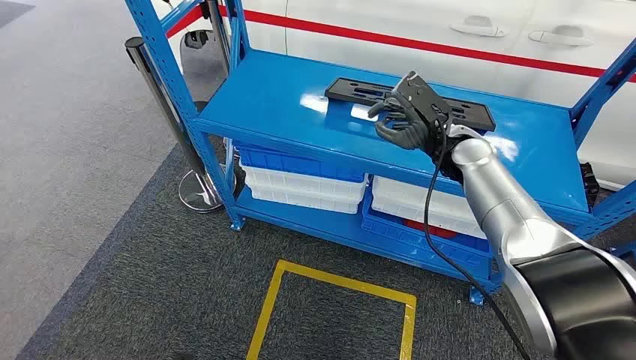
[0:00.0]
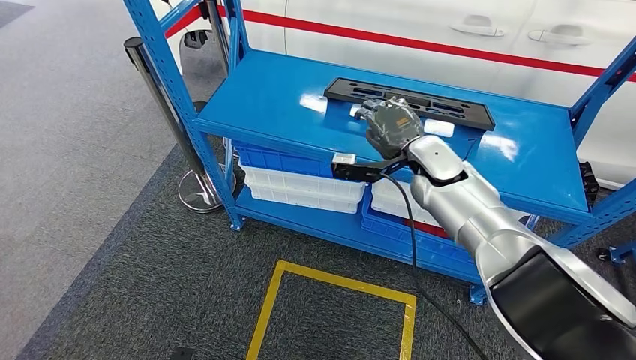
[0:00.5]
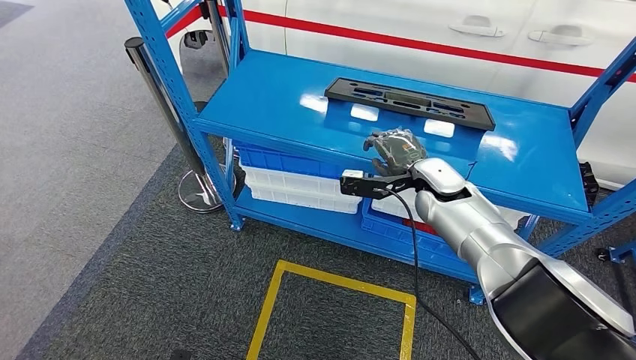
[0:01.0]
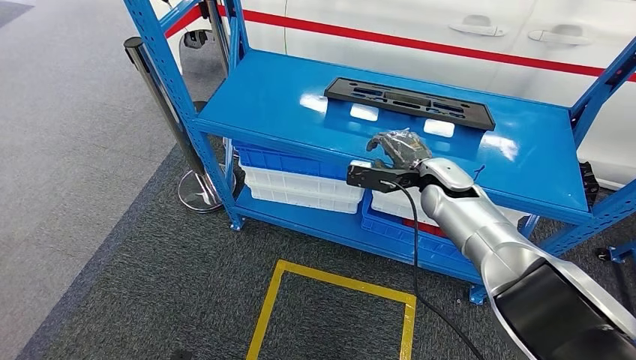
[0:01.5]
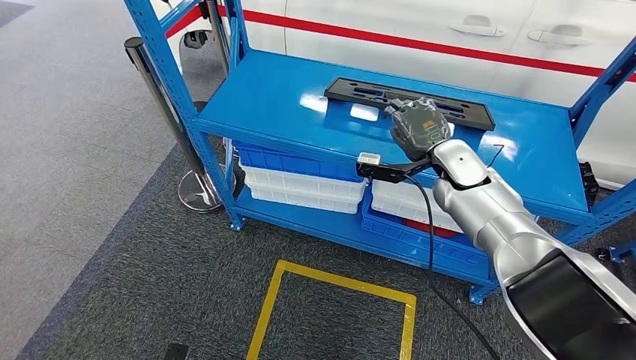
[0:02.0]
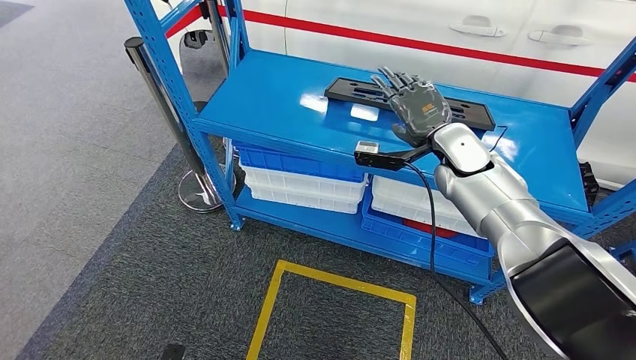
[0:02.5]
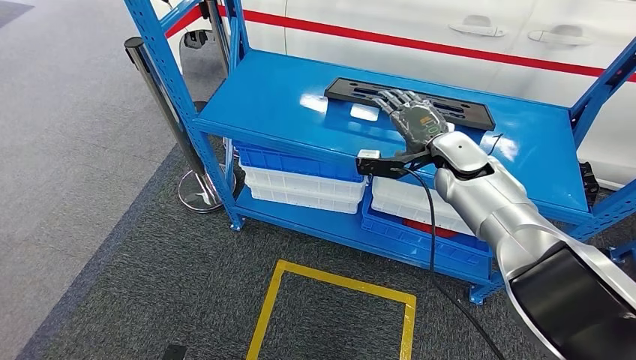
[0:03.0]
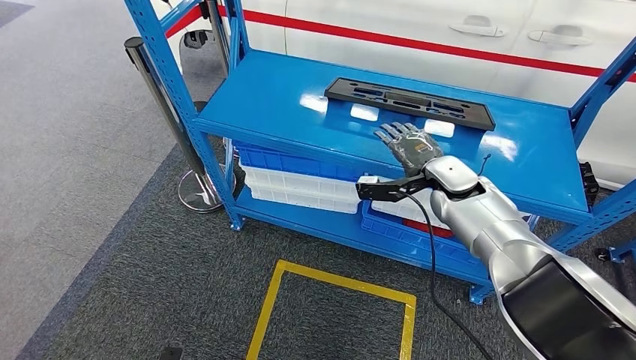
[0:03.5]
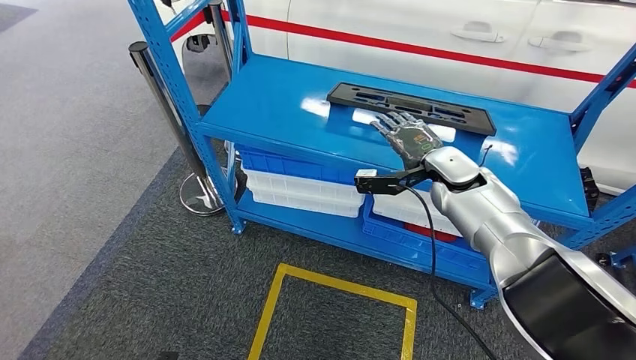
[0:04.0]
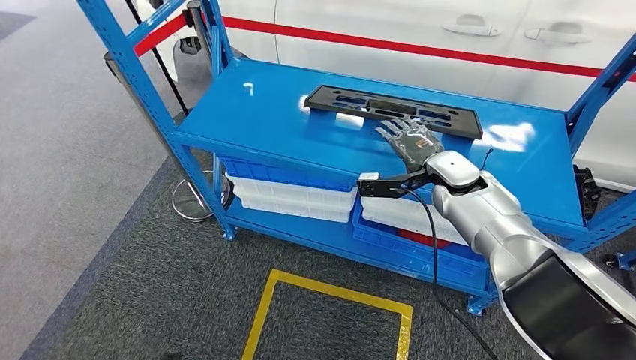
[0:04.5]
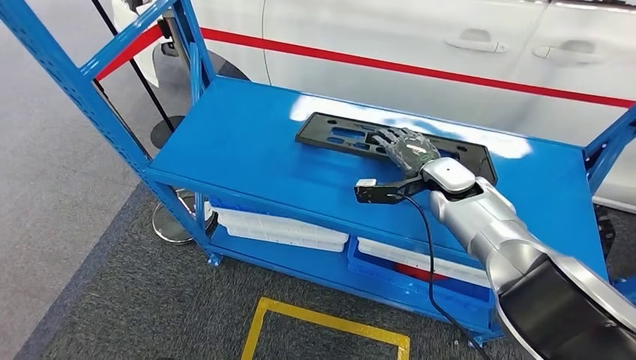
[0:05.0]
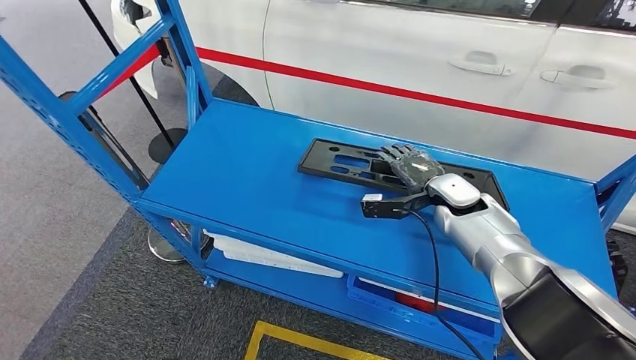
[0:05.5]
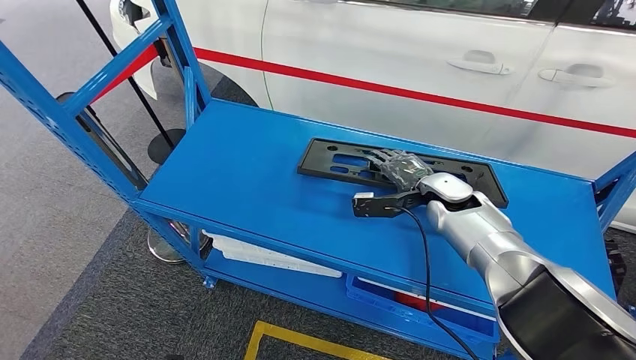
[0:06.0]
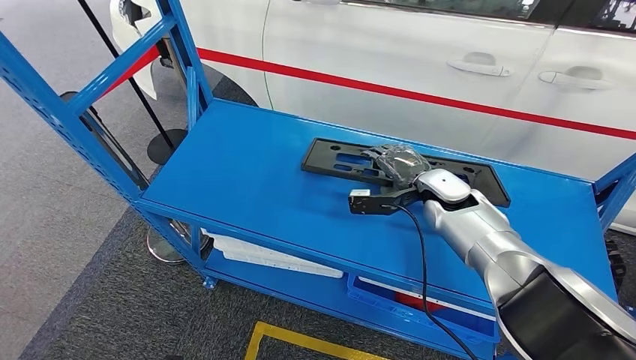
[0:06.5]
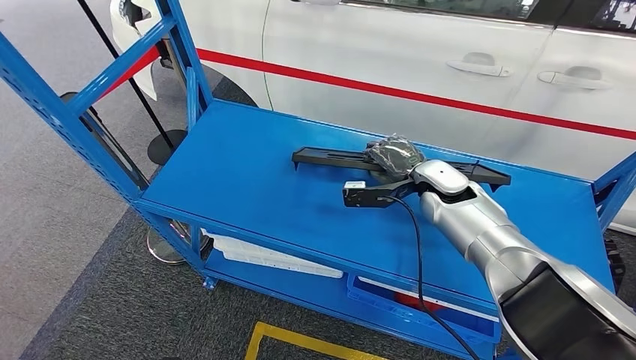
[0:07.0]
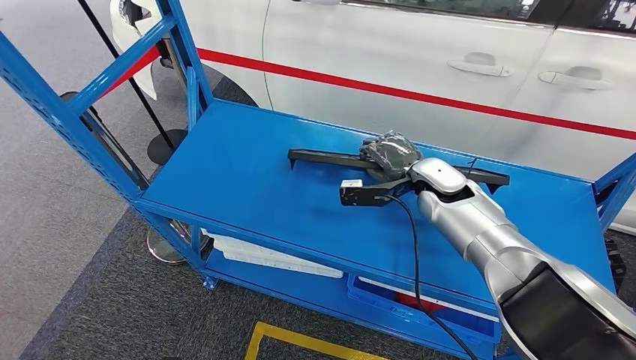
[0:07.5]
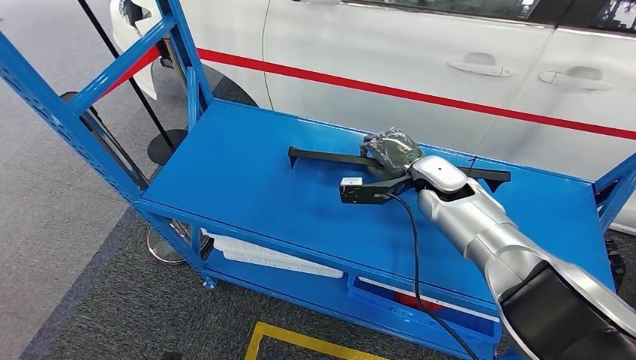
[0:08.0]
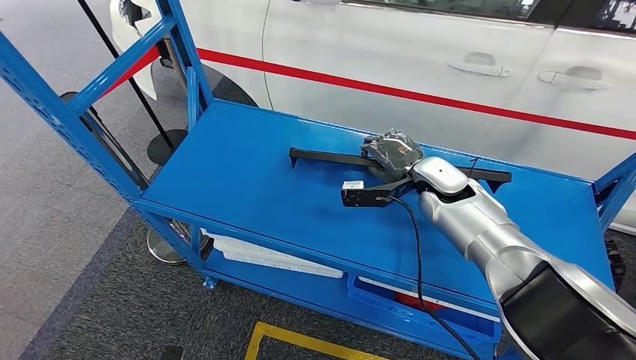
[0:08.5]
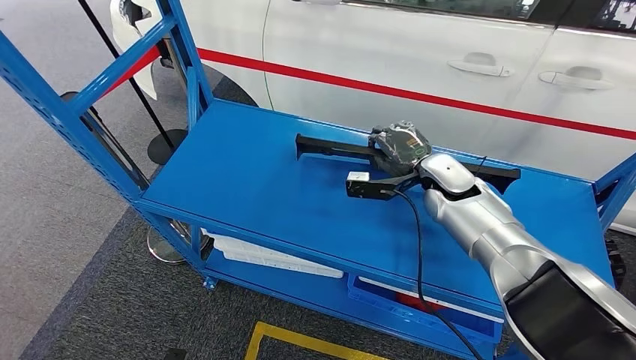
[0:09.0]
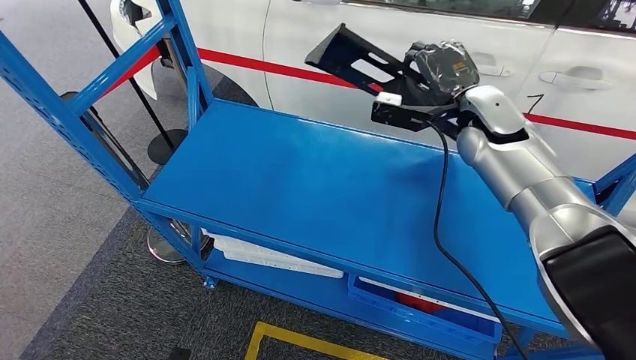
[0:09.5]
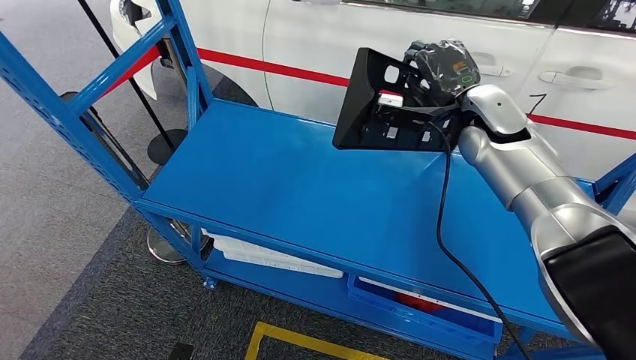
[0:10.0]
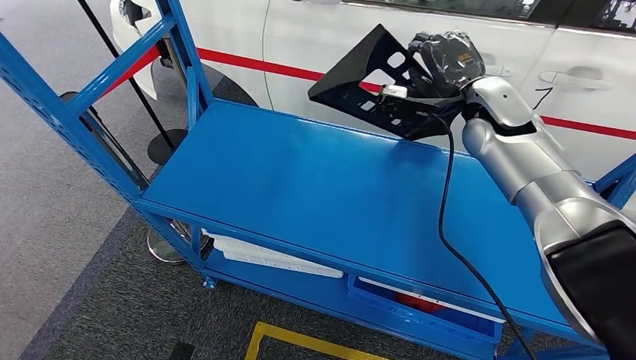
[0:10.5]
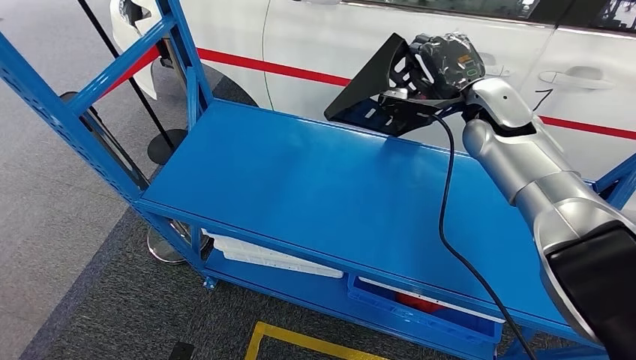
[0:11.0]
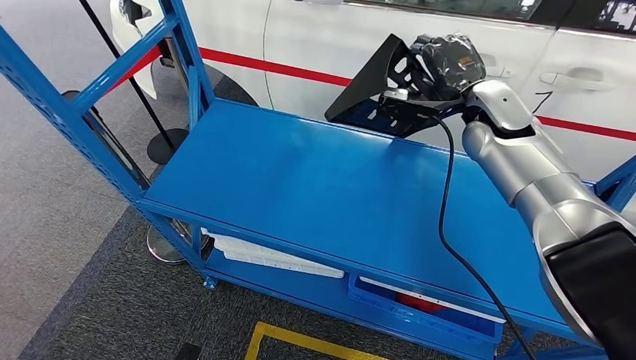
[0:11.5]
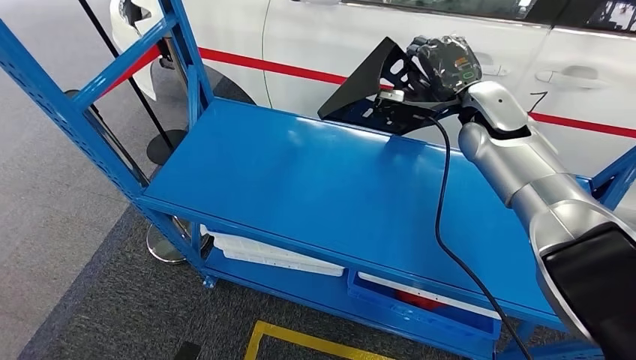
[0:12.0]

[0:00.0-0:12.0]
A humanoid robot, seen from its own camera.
Step, 0:00.0 to 0:09.0: Pick up the large material from the shelf.
0:06.0 to 0:08.0: The hands stay close to where they were, moving slightly.
0:10.0 to 0:12.0: There are only small adjustments of the hands.

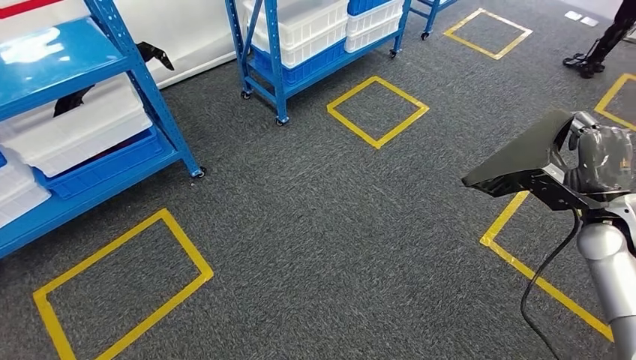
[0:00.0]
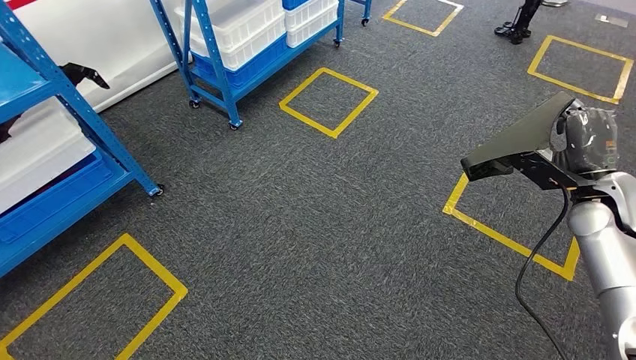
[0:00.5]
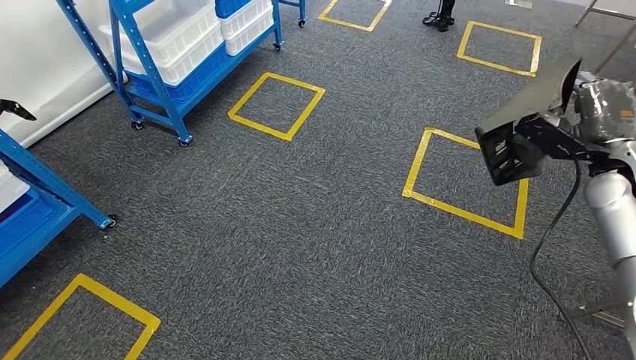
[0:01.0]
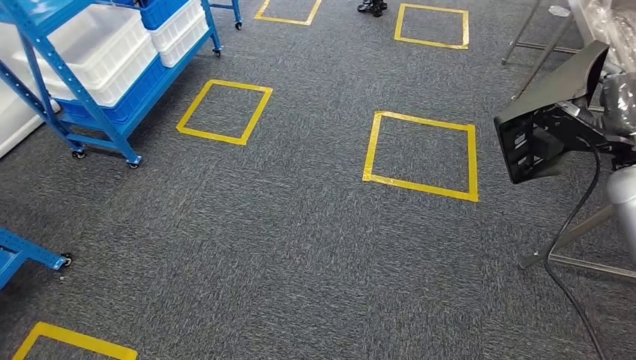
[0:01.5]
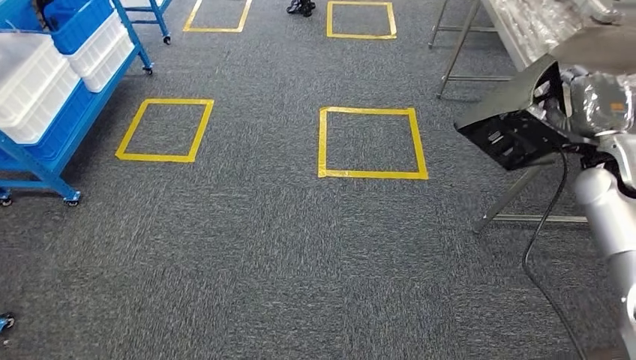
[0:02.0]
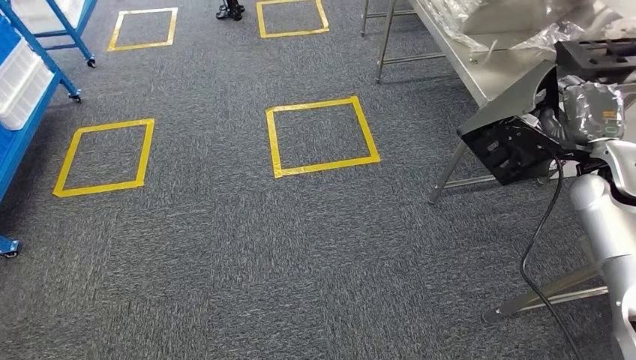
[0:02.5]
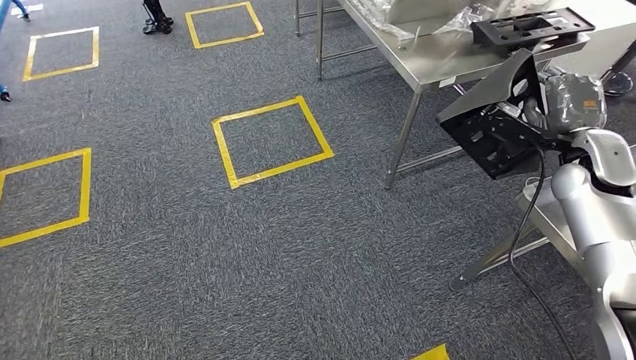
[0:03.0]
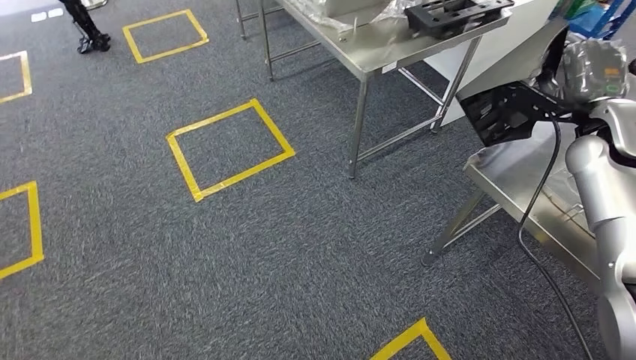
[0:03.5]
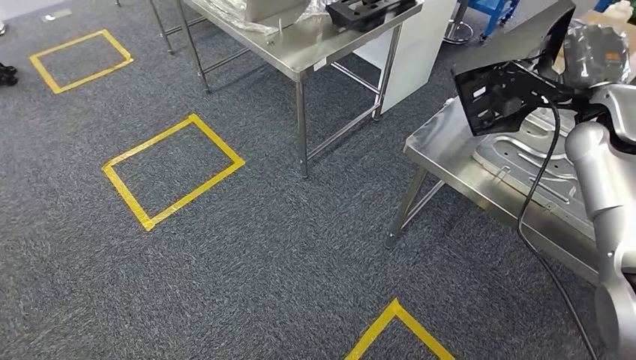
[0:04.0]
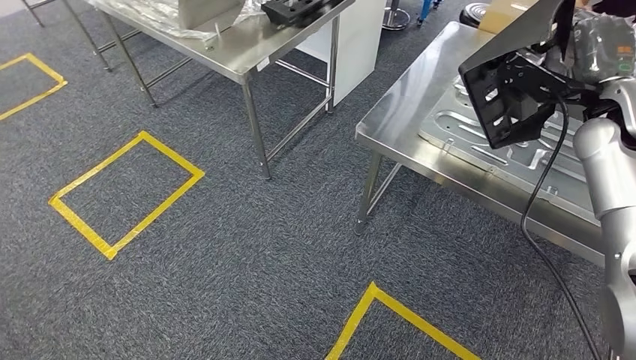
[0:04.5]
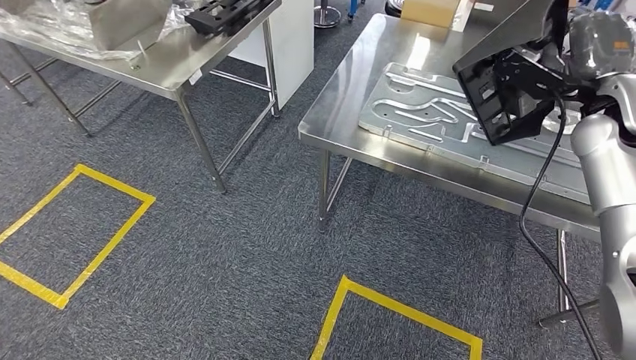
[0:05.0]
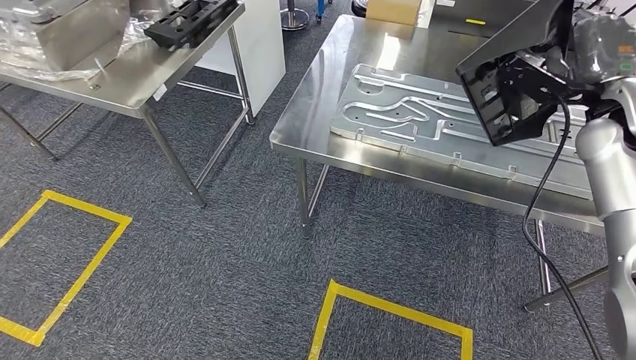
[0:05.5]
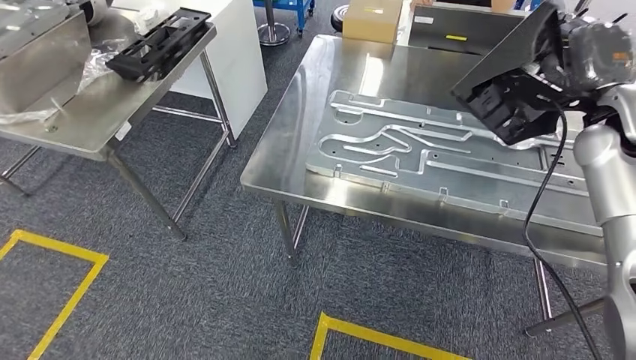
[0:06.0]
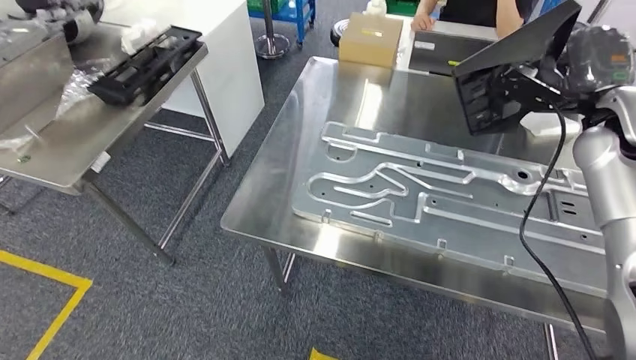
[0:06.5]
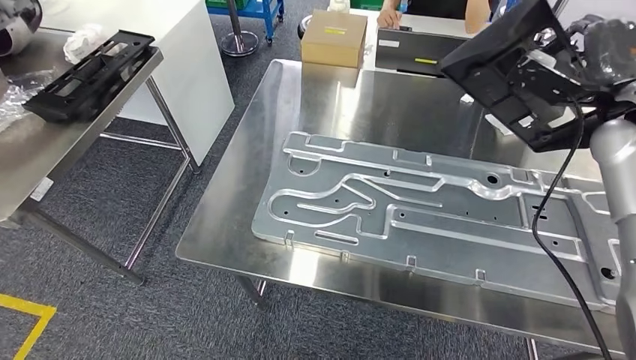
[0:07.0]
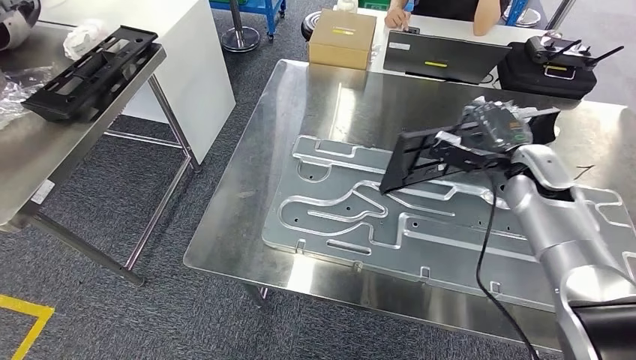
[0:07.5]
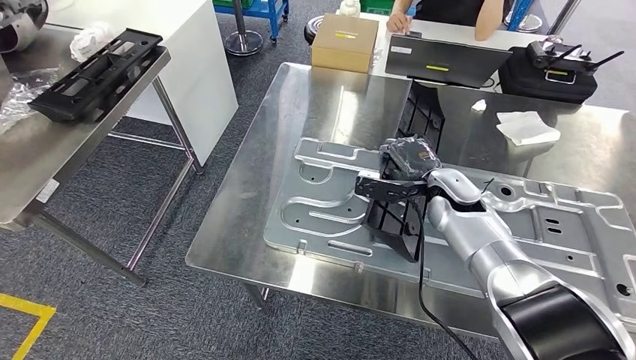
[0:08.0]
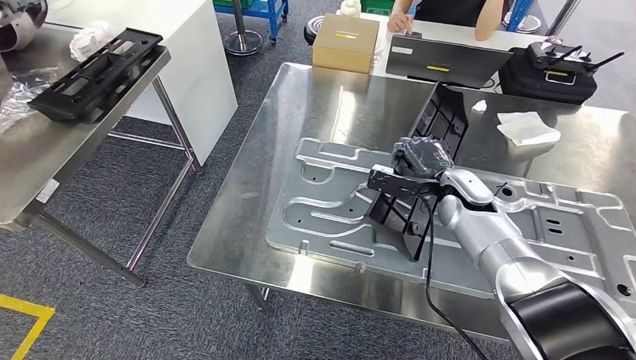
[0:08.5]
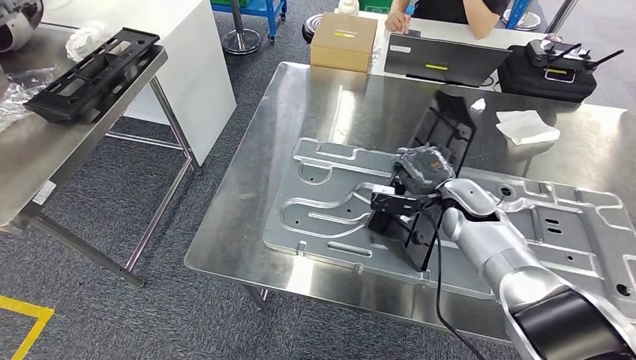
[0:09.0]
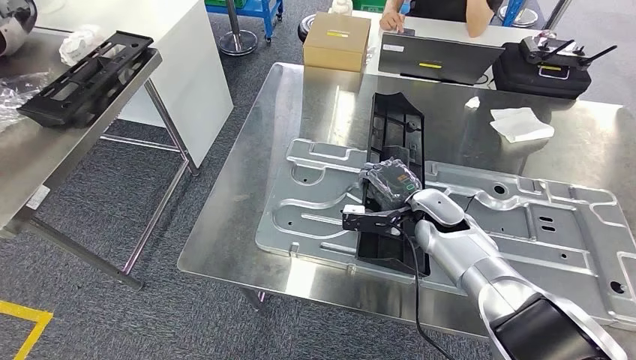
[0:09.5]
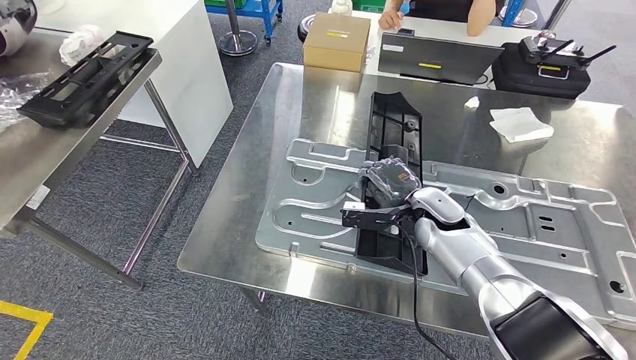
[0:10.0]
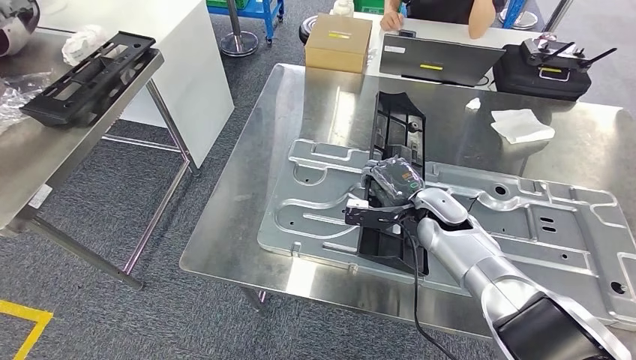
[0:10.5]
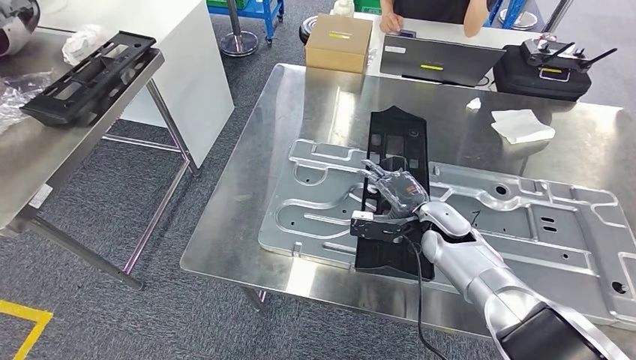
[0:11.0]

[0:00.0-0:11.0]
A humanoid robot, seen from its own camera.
Step, 0:00.0 to 0:07.0: Move the large material to the front of the workbench.
